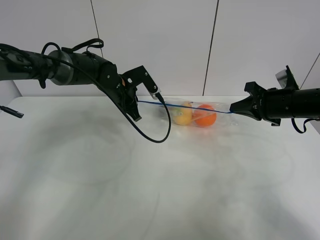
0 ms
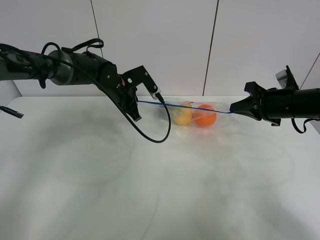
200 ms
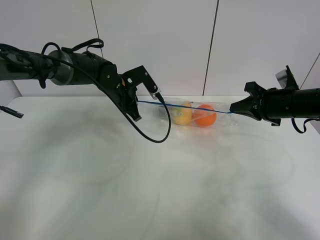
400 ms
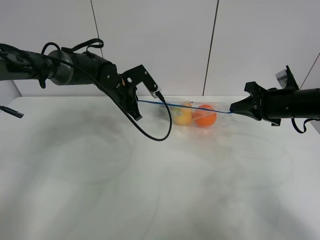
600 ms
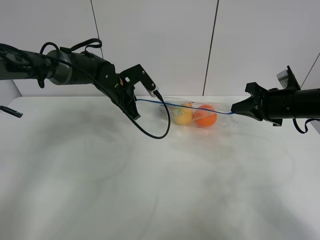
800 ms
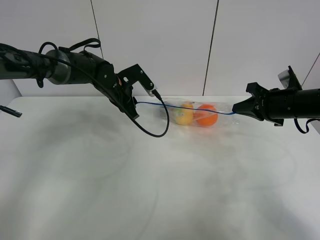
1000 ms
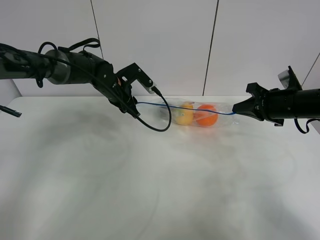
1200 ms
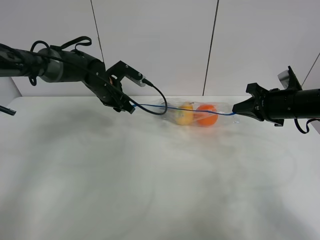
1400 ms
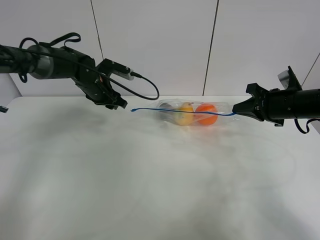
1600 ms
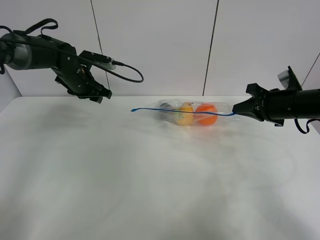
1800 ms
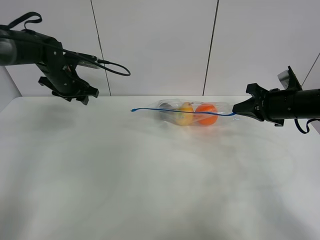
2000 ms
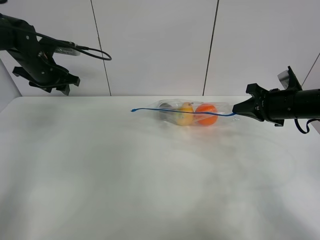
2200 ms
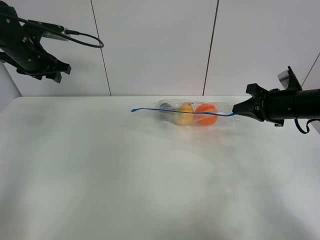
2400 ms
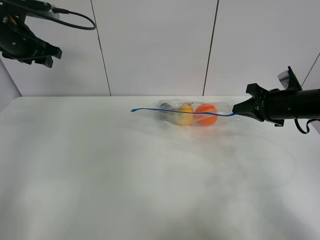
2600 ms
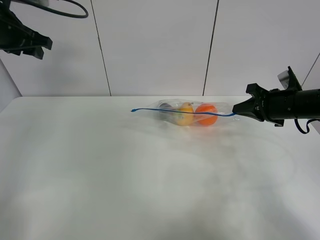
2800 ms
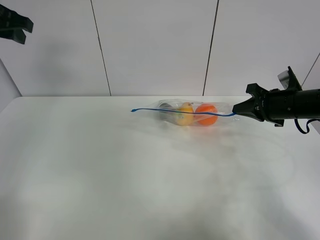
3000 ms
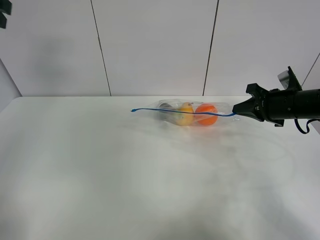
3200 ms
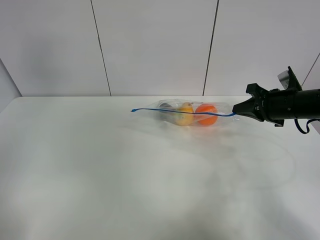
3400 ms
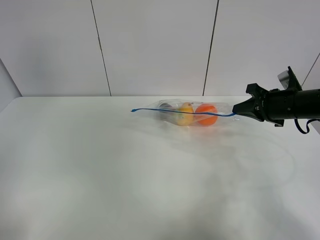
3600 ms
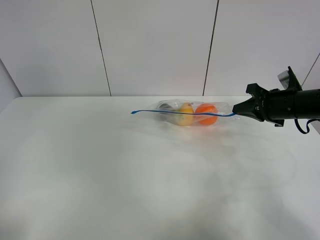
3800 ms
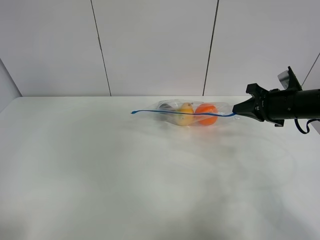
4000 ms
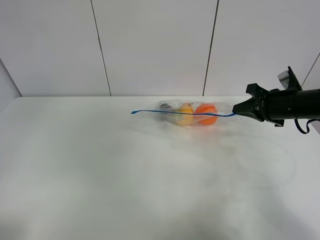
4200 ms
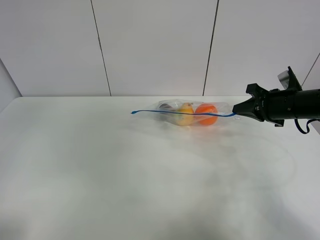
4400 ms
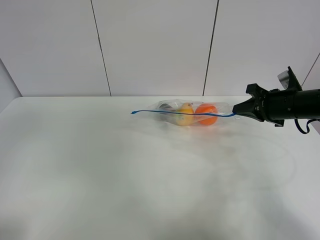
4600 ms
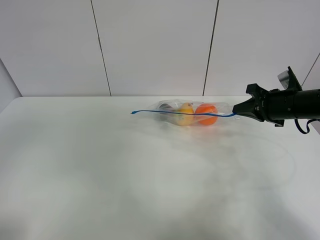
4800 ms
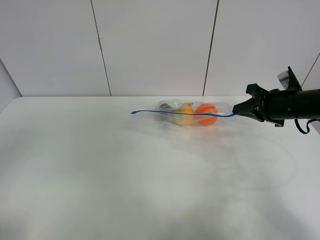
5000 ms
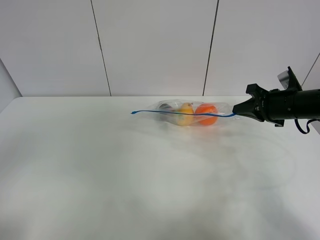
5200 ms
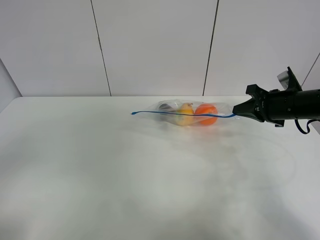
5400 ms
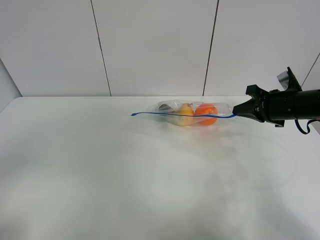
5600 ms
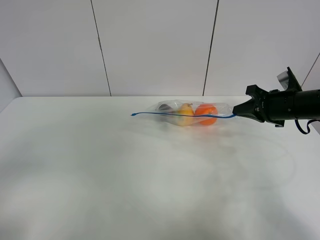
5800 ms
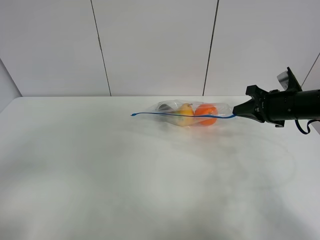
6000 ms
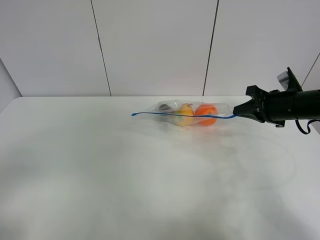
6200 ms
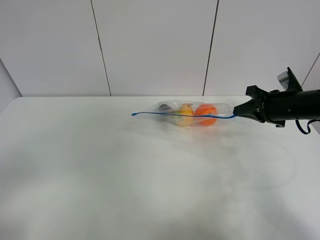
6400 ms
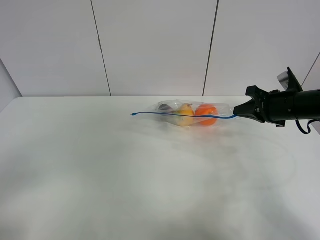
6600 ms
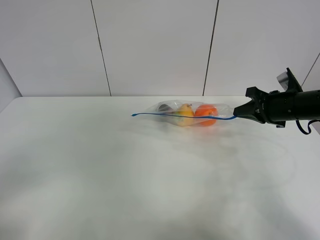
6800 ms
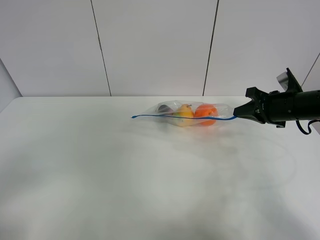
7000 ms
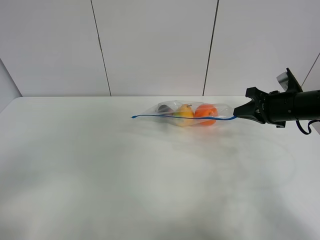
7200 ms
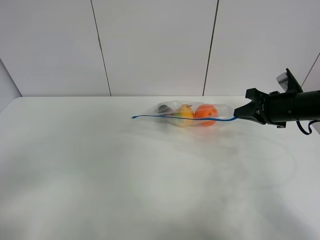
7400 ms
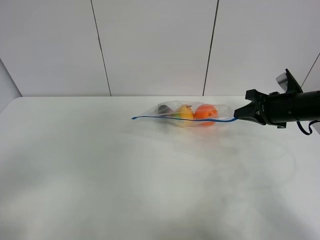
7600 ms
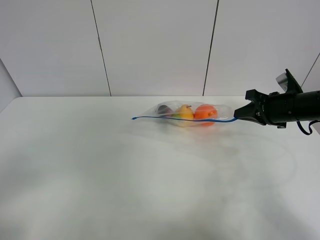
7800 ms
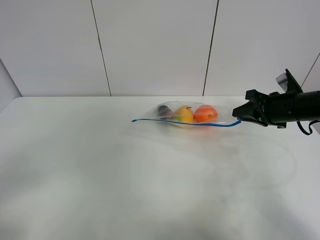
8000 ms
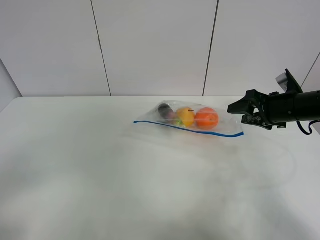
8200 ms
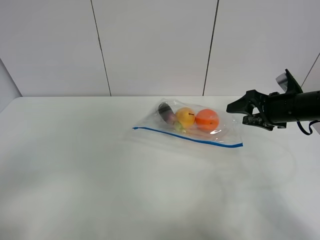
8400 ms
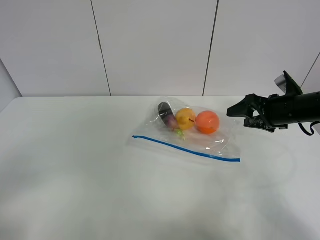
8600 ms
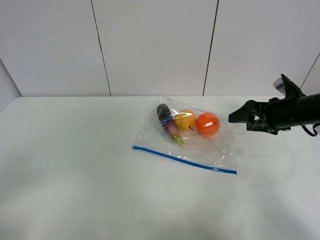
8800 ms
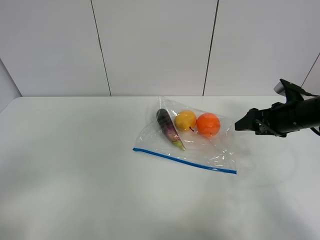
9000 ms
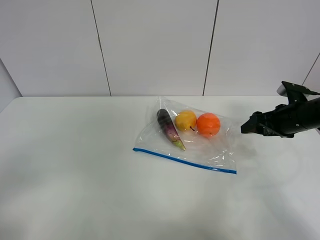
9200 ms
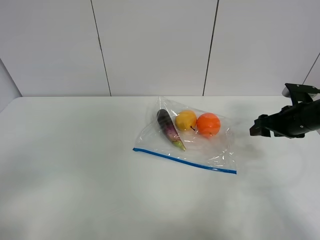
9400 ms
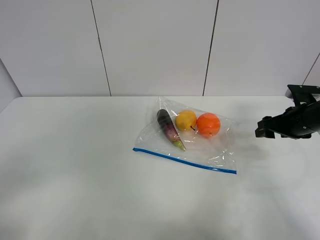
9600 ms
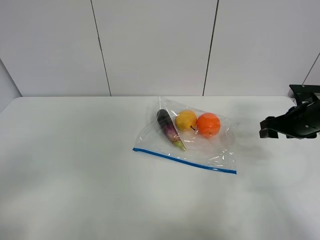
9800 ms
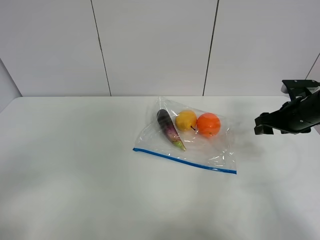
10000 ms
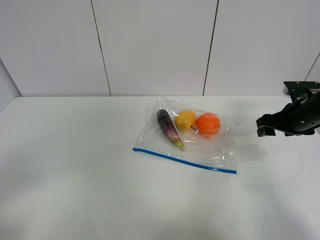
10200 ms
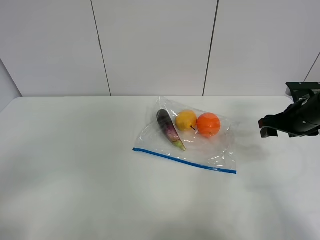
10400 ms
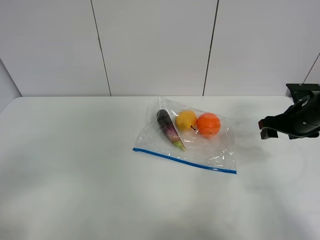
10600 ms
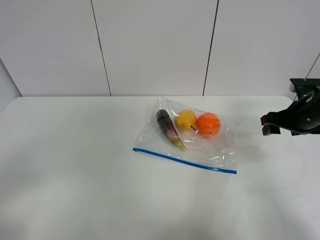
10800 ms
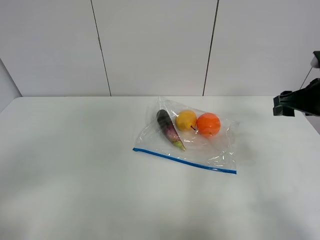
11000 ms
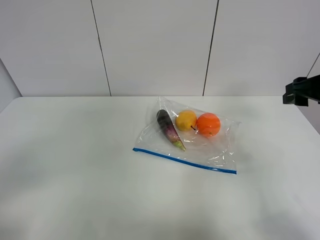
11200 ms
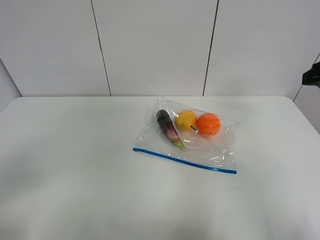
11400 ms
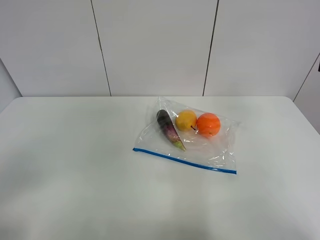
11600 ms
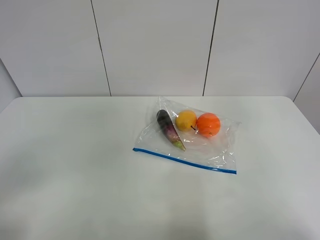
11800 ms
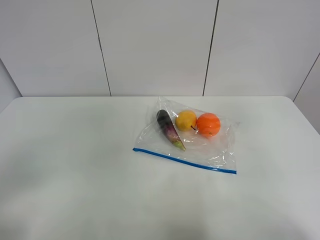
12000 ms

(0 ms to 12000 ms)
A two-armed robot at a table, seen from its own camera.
0 ms - 1600 ms: The left gripper moves to the left, approximately 5 cm, and opens its fingers.
1600 ms - 3000 ms: The left gripper heads upward, to the left and backward, covering about 30 cm.
3000 ms - 4400 ms: The left gripper shifts some 30 cm backward.
6000 ms - 7600 ms: The grippers move only a little.
7600 ms - 9000 ms: The right gripper opens.
10400 ms - 12000 ms: The right gripper is displaced backward and upward by roughly 30 cm.
